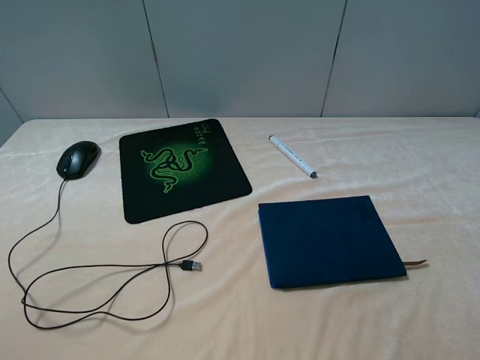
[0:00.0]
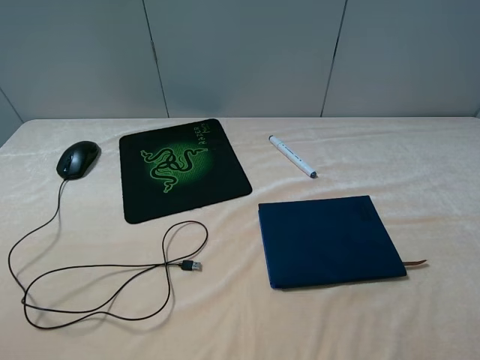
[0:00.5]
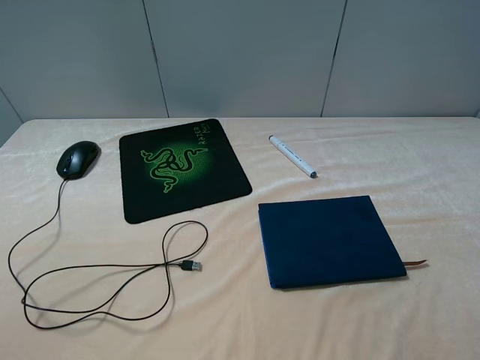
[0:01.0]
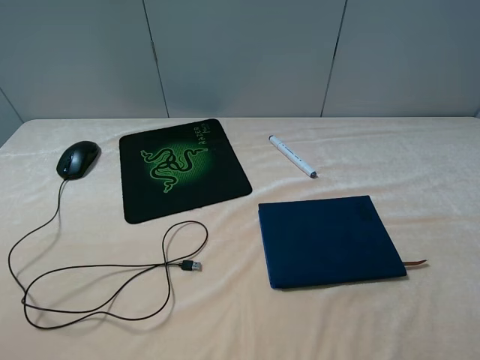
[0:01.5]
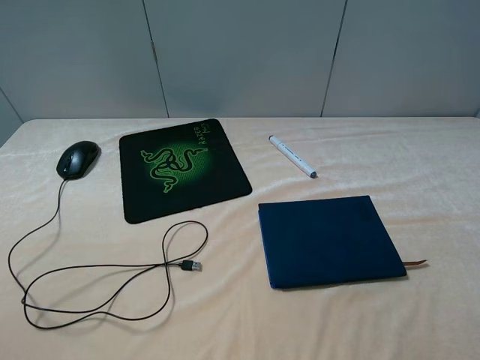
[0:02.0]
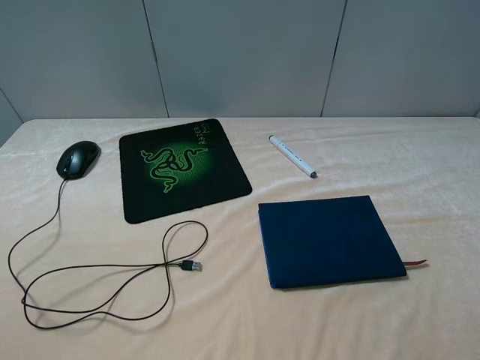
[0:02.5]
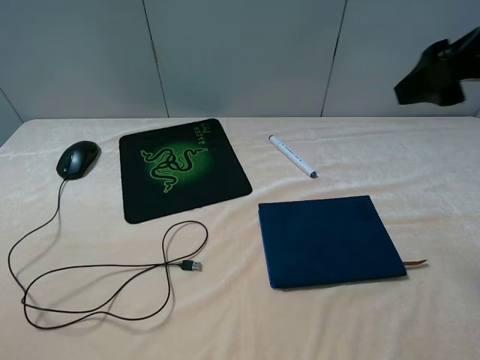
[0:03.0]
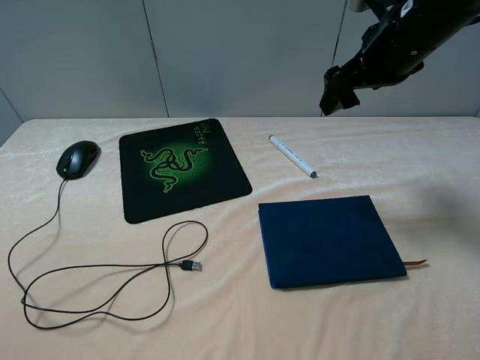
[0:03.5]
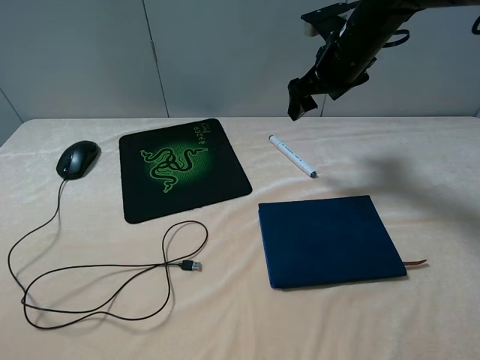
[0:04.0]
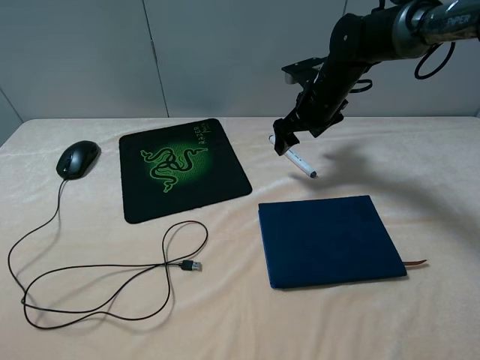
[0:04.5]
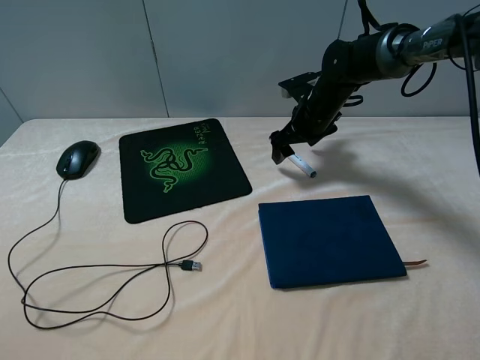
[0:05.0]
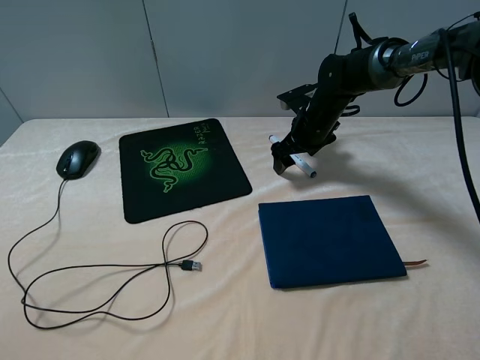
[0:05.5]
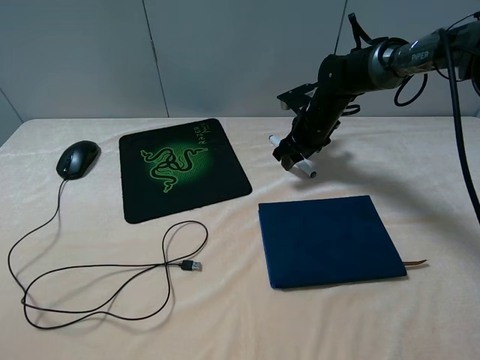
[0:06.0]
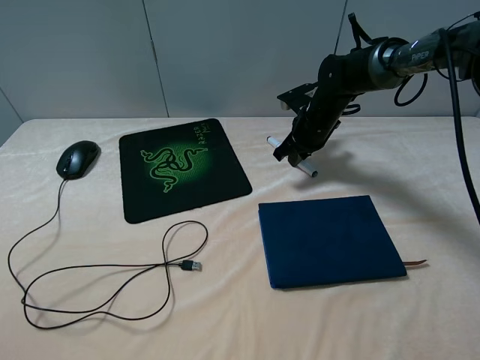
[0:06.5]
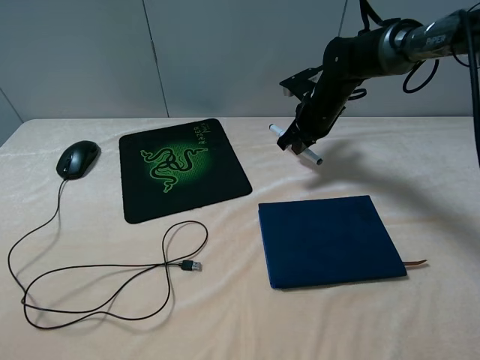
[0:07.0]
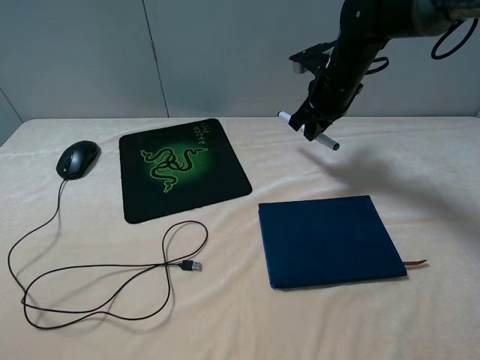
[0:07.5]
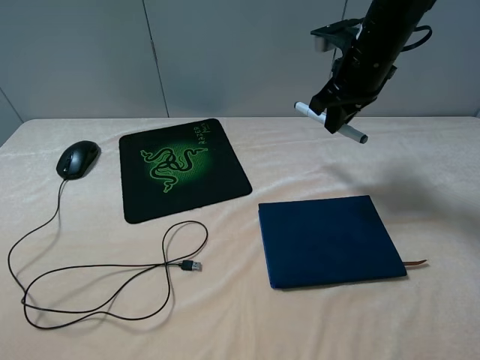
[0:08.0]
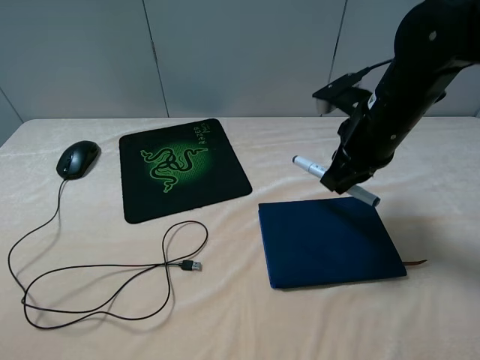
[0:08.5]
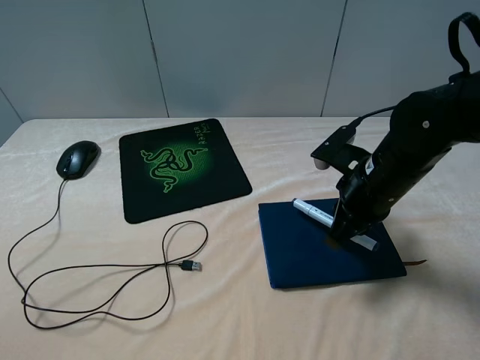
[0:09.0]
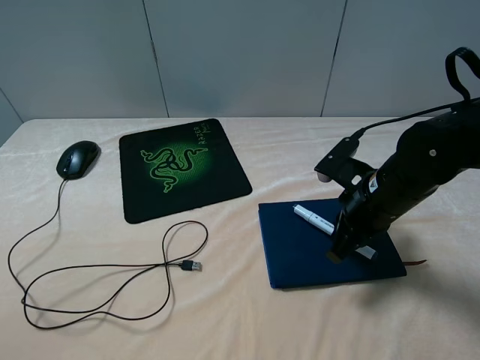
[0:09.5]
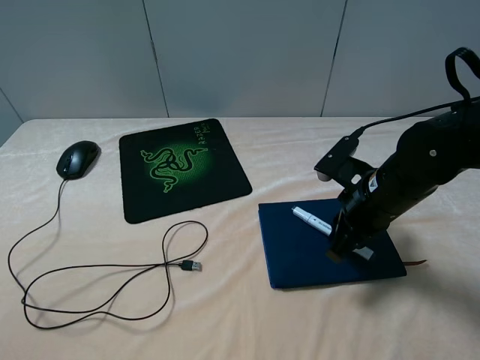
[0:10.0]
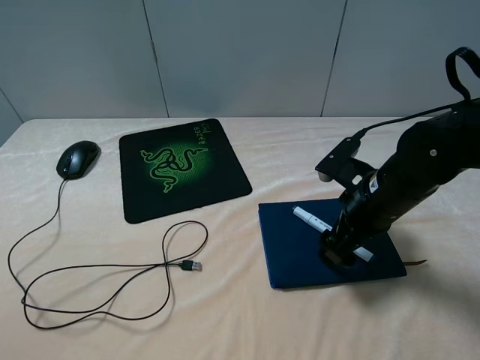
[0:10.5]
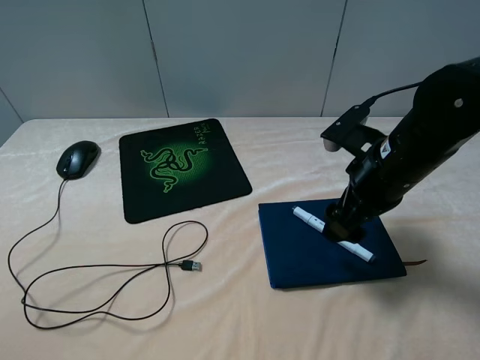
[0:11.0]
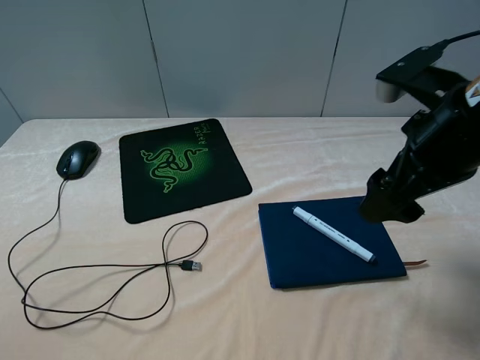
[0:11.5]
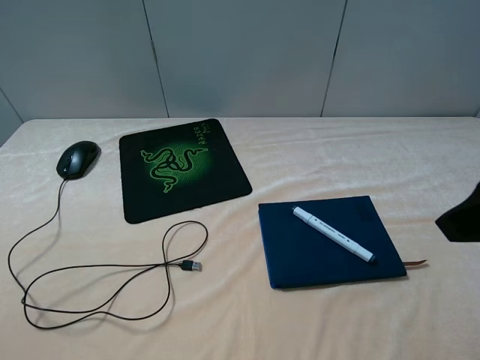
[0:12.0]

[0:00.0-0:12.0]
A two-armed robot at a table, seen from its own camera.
Step, 0:00.0 to 0:06.0: Grasp the marker with the right gripper.
Step, 0:06.5 to 0:11.0: Place the marker on the notebook with the right gripper.
0:00.0 to 0:02.0: Both grippers stay put.
0:02.0 to 0:04.0: The right gripper moves forward, approximately 40 cm.
0:04.0 to 0:06.0: The right gripper travels downward by roughly 15 cm, and closes its fingers.
0:06.0 to 0:08.0: The right gripper is displaced upward and backward by roughly 15 cm, and closes up.
0:08.0 to 0:10.0: The right gripper moves backward and downward, roughly 20 cm.
0:10.0 to 0:12.0: The right gripper heads upward and backward, covering approximately 25 cm, and opens up.

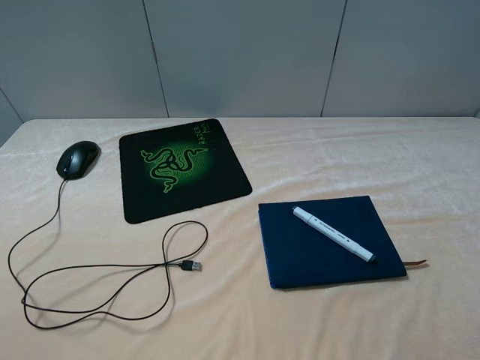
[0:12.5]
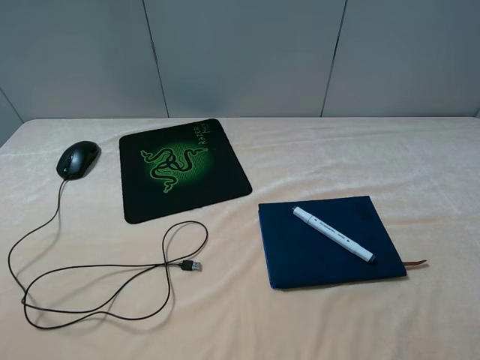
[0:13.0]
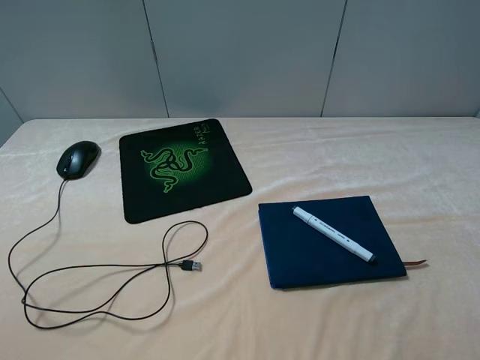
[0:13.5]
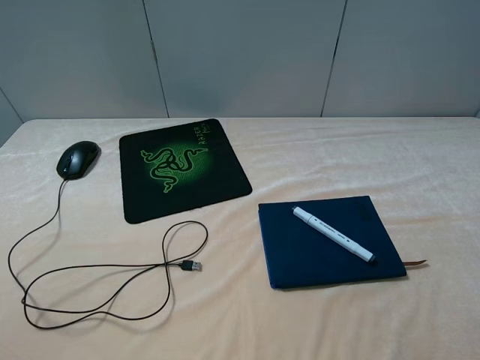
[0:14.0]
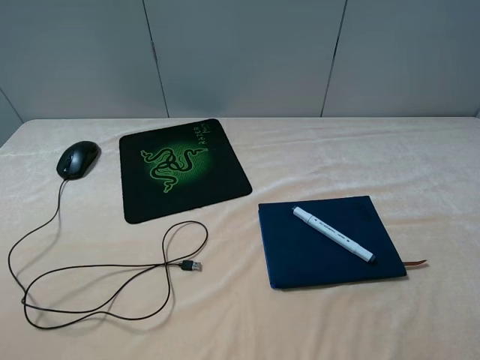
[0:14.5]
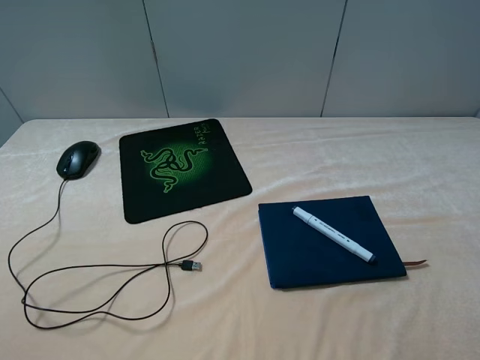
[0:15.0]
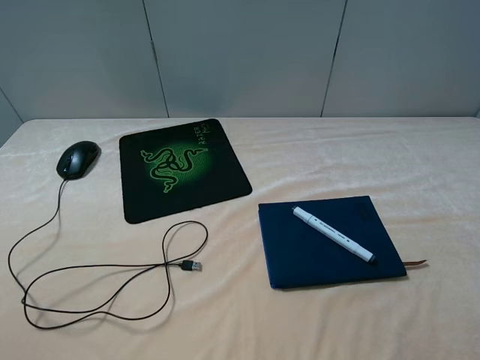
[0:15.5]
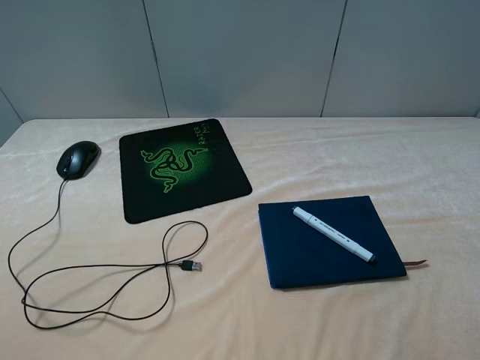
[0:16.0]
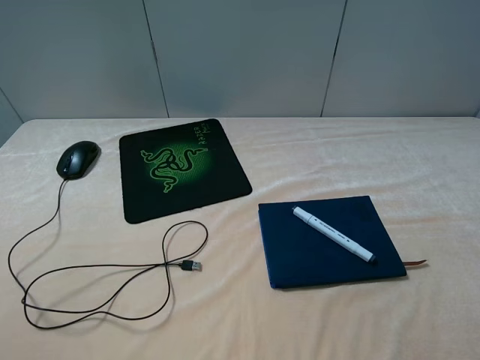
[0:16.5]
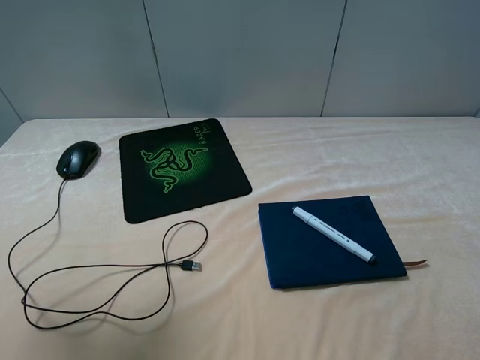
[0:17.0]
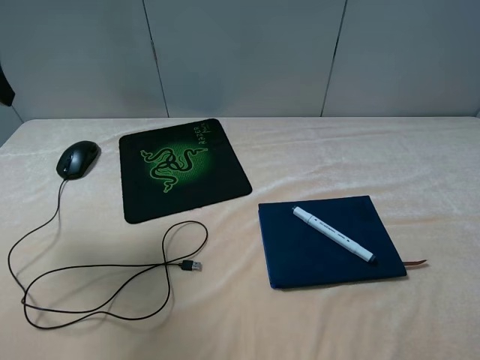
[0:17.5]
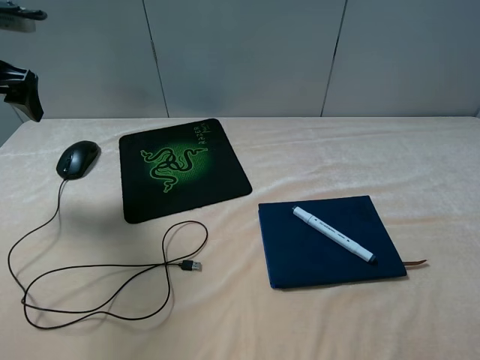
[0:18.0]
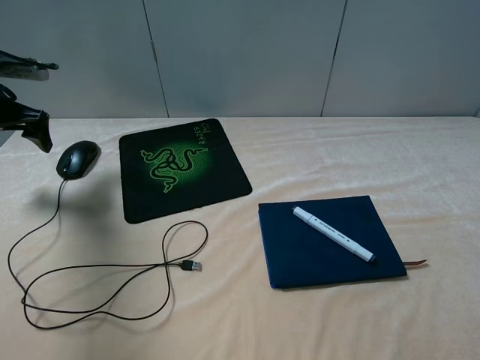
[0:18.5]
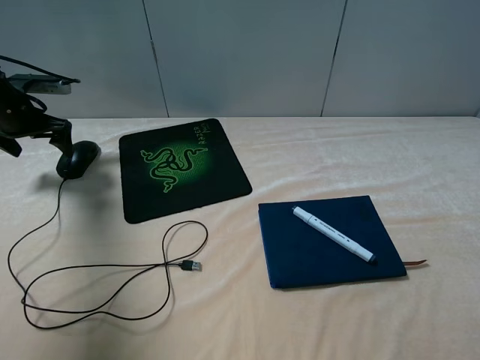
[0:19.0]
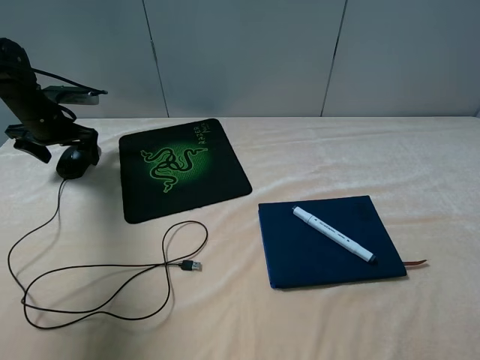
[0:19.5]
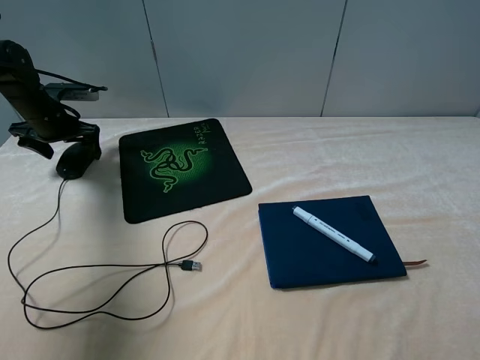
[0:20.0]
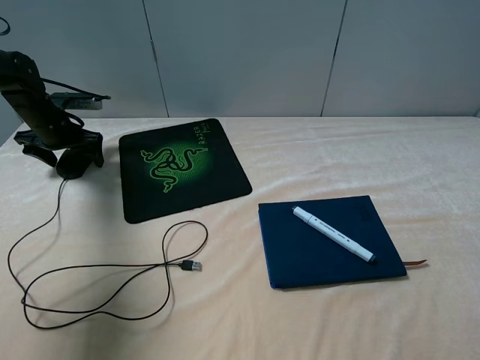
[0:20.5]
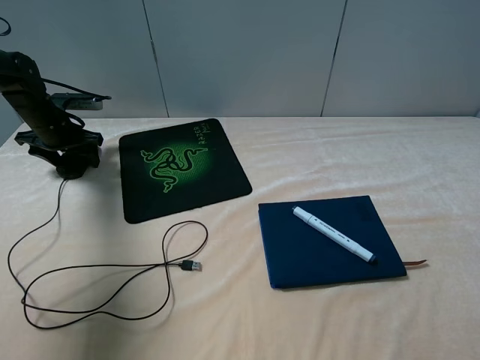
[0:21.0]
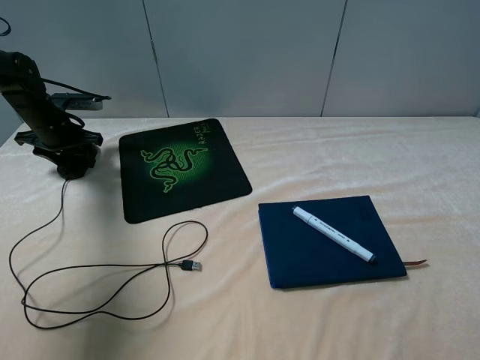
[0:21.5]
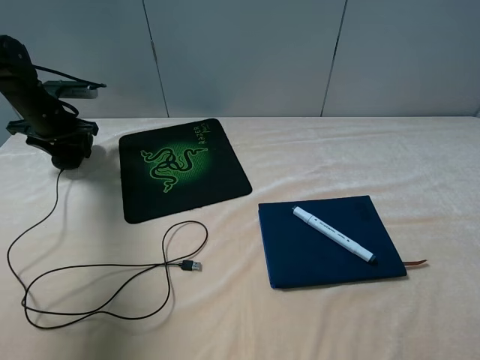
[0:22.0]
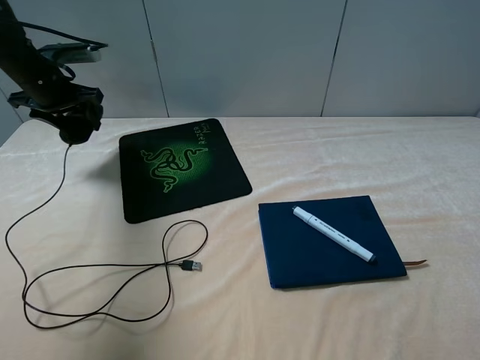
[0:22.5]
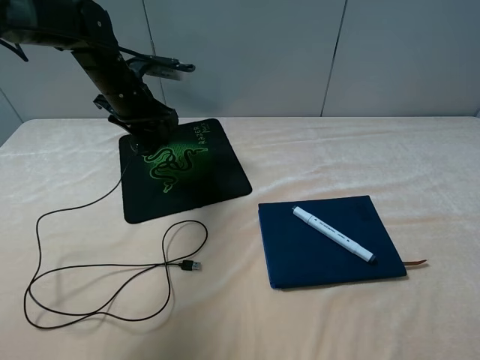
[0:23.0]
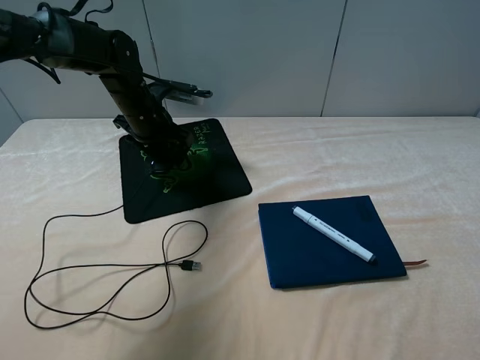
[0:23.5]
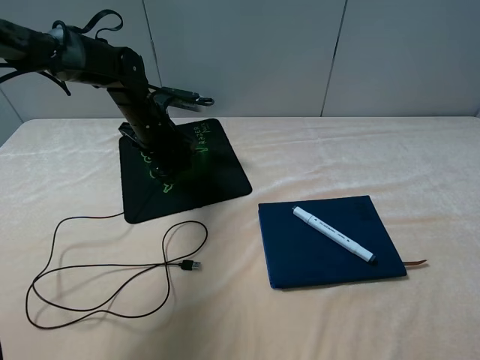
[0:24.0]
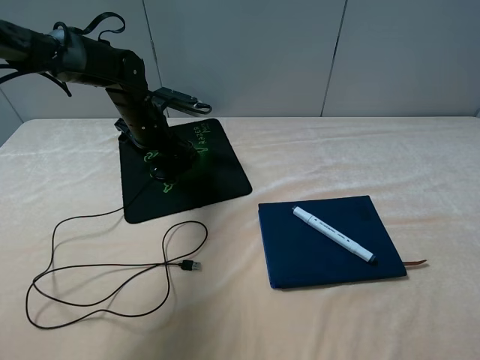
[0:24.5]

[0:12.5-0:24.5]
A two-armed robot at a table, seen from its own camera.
Step, 0:12.5 to 0:21.5: Grasp the mouse with the left gripper.
0:16.5 to 0:18.5: The left gripper travels forward and downward by about 35 cm.
0:18.5 to 0:20.5: The left gripper heads downward and forward, covering about 10 cm.
0:20.5 to 0:22.5: The left gripper travels upward by approximately 10 cm, and closes up.
0:22.5 to 0:24.5: The left gripper shifts roughly 15 cm to the right and downward, and opens.

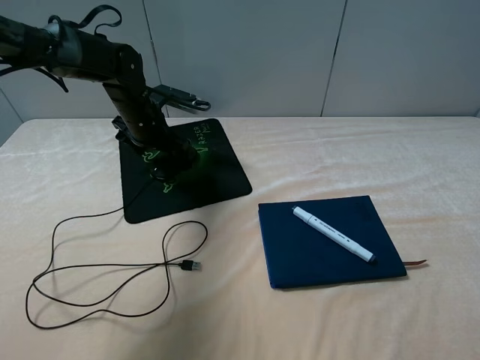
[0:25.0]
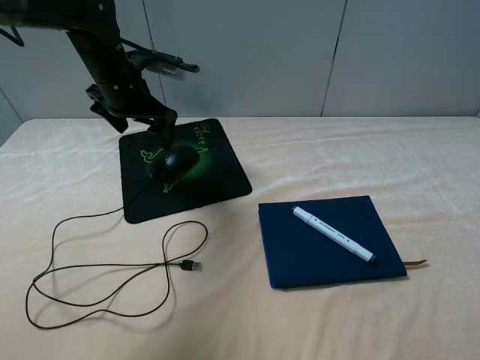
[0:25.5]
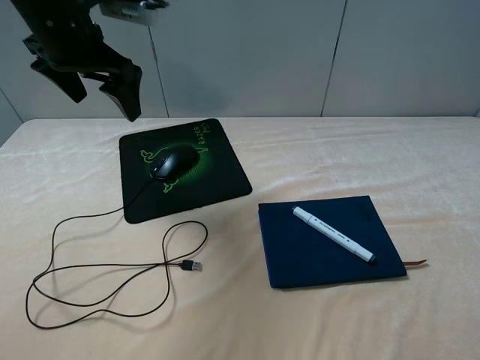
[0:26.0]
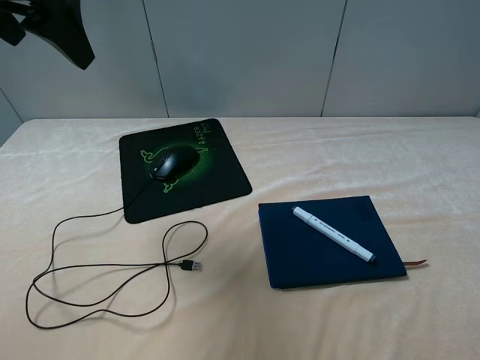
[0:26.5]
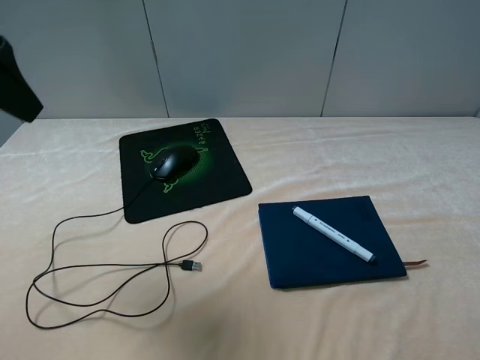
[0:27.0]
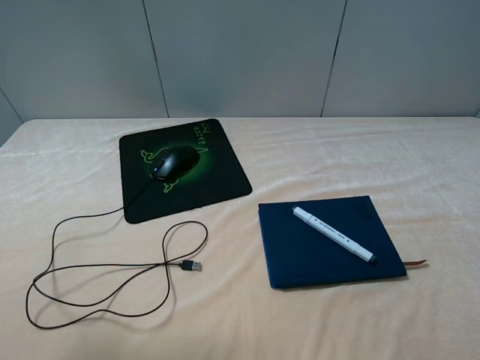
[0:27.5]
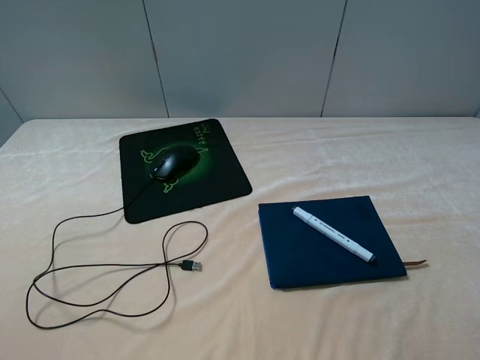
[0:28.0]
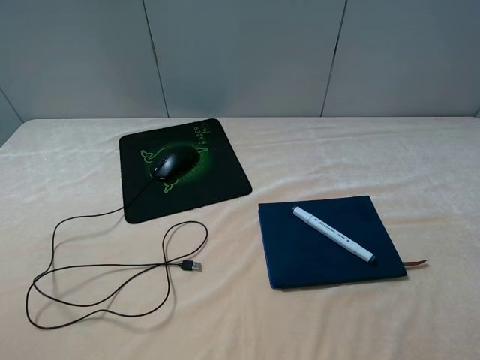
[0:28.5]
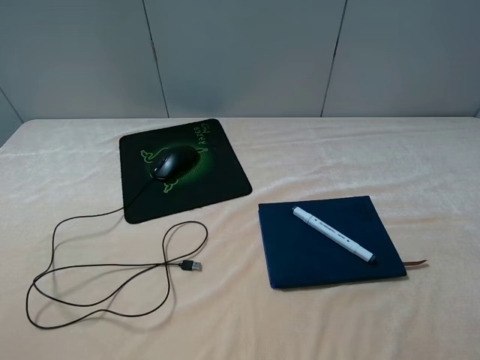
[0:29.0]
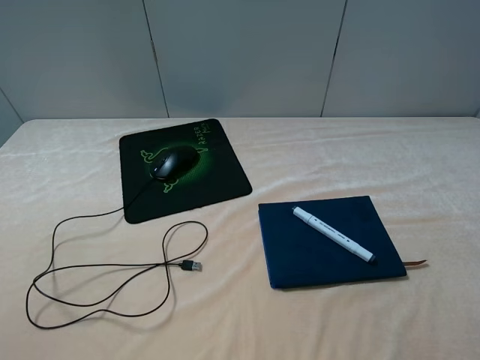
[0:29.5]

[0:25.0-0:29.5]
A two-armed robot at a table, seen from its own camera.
0:25.0 to 0:27.0: The left gripper moves upward and backward, some 35 cm.
0:27.0 to 0:29.5: The left gripper goes about 25 cm backward and downward.
